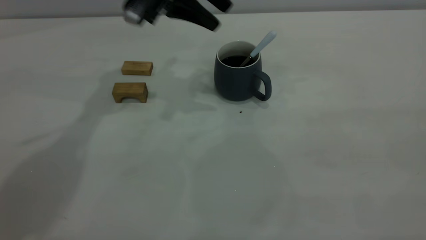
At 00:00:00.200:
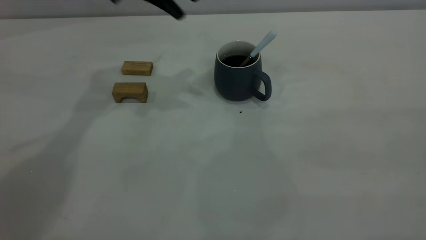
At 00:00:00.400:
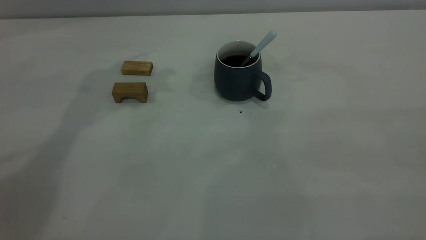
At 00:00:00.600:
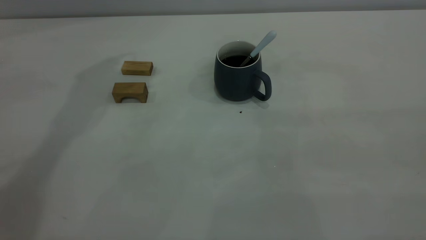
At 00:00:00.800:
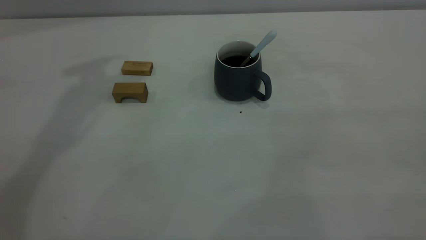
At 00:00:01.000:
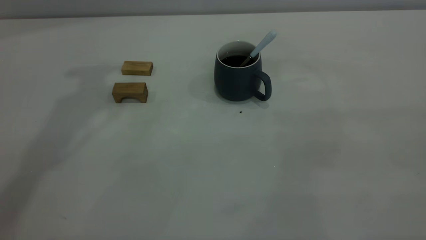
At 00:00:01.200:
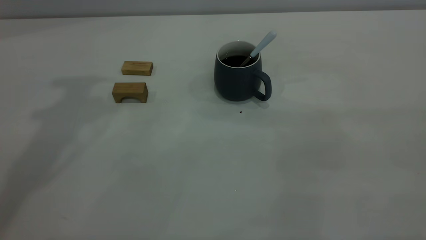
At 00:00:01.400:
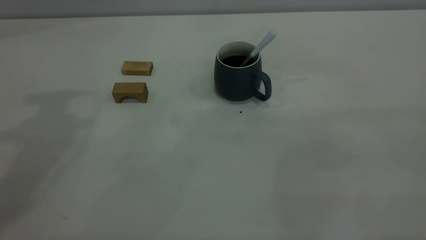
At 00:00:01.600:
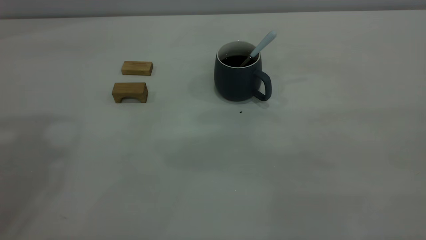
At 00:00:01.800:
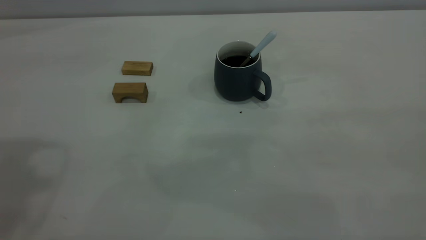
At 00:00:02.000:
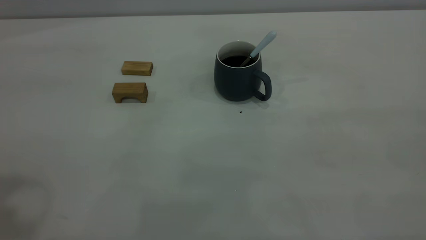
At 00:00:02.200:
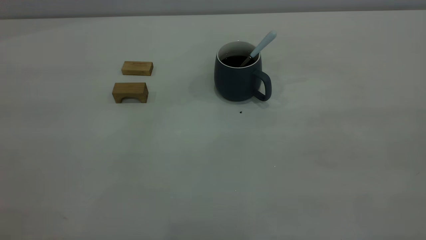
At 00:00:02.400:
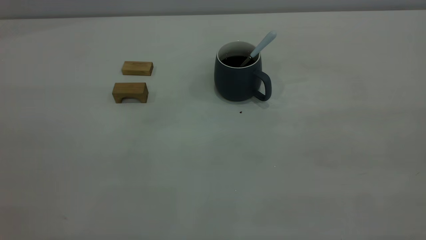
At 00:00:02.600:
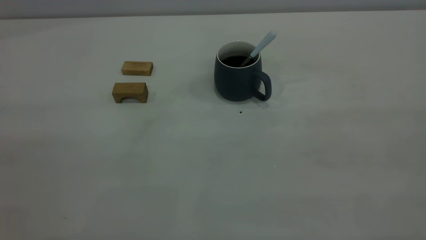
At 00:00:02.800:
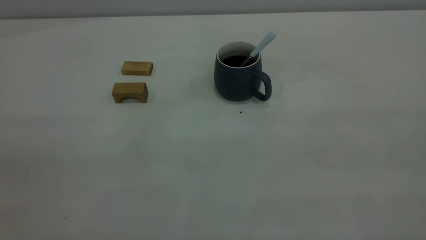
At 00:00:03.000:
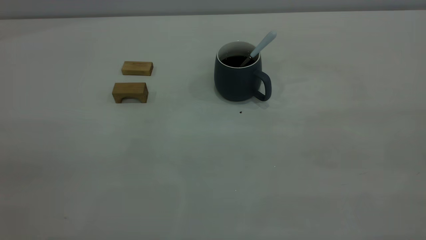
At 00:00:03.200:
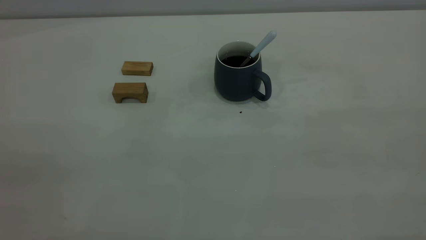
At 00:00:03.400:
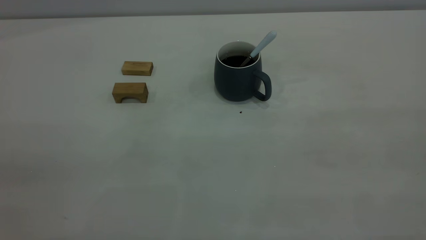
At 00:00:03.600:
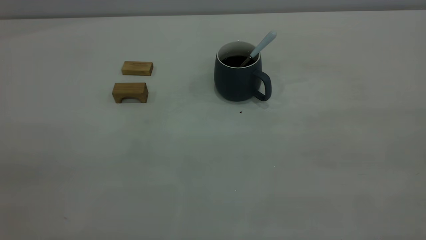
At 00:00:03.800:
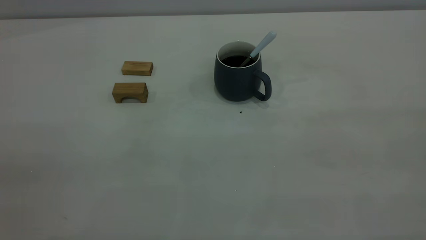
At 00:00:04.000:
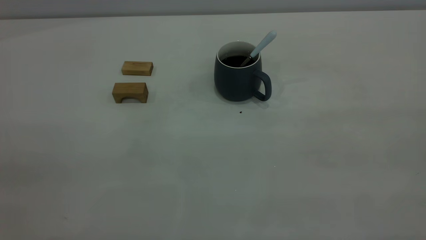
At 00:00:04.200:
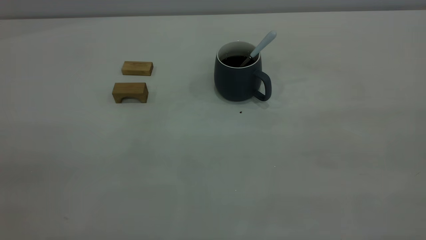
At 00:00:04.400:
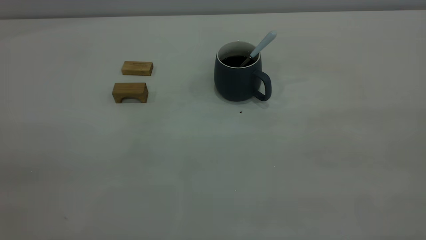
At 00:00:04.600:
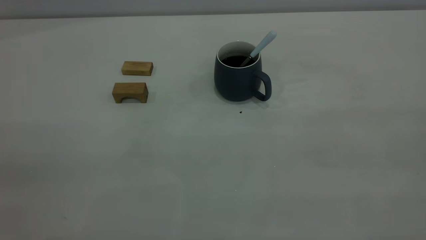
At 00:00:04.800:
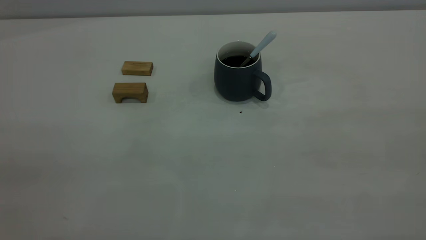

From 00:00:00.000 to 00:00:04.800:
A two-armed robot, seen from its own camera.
From 00:00:00.000 to 00:00:01.600: The left gripper goes some 30 cm upward, backward and to the left.
From 00:00:03.200 to 00:00:04.800: Both grippers stay about where they are.
